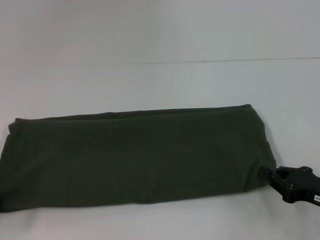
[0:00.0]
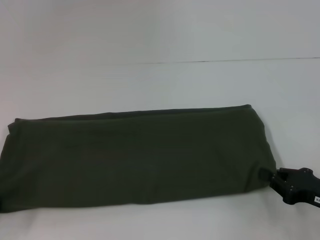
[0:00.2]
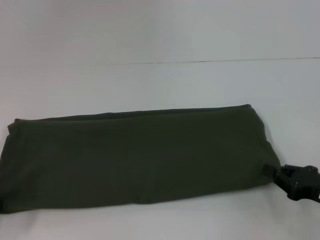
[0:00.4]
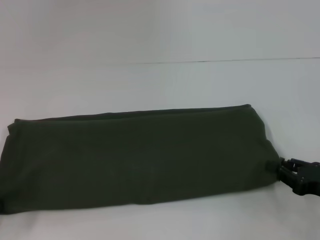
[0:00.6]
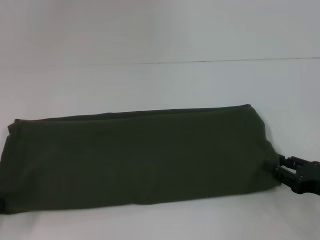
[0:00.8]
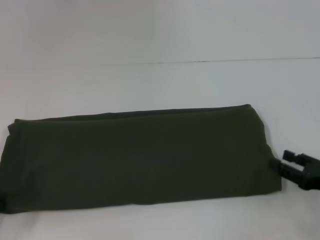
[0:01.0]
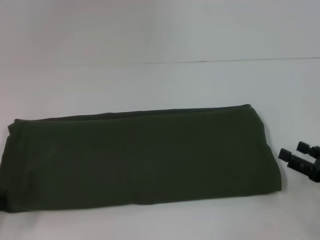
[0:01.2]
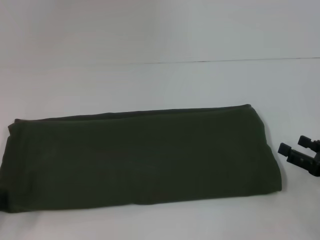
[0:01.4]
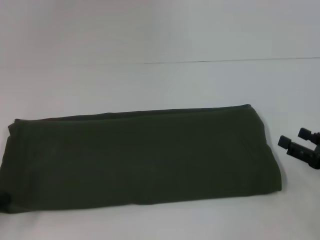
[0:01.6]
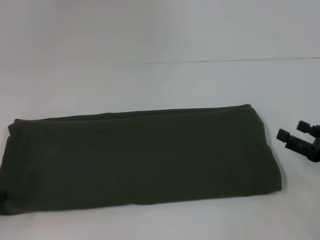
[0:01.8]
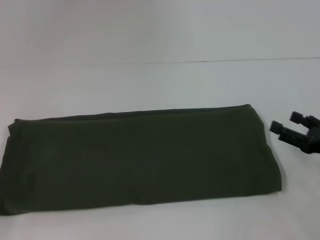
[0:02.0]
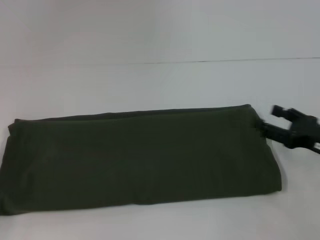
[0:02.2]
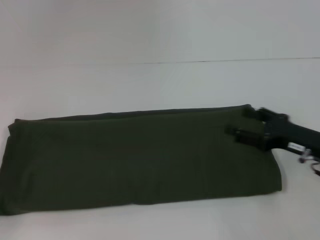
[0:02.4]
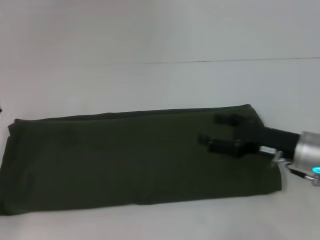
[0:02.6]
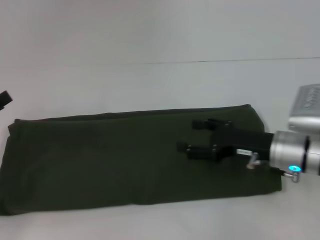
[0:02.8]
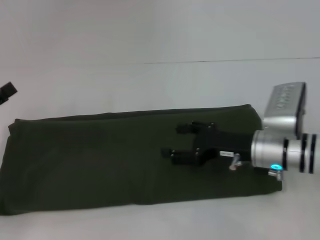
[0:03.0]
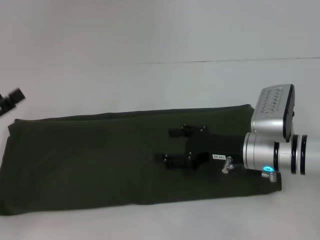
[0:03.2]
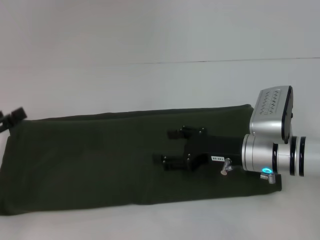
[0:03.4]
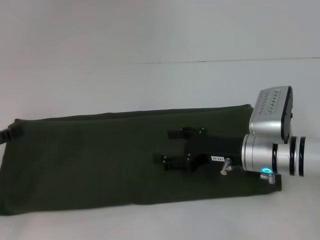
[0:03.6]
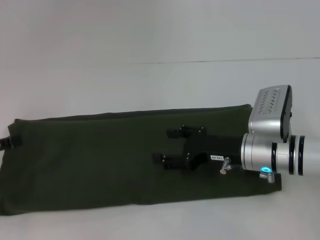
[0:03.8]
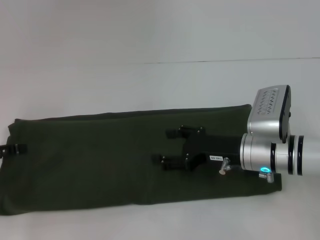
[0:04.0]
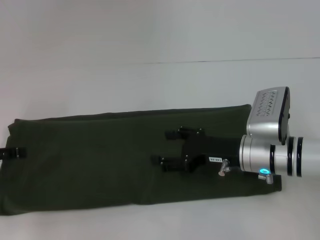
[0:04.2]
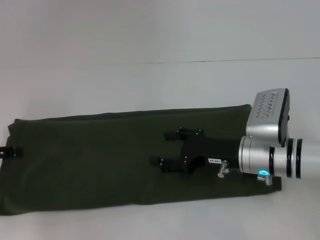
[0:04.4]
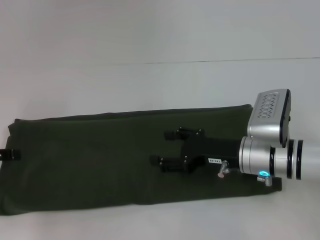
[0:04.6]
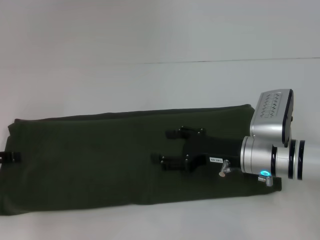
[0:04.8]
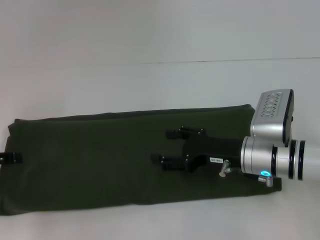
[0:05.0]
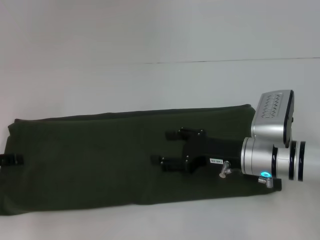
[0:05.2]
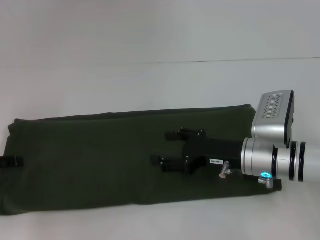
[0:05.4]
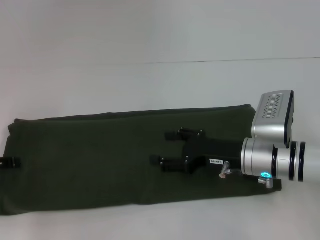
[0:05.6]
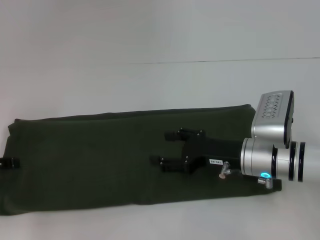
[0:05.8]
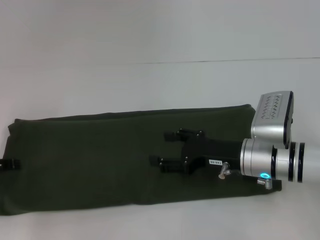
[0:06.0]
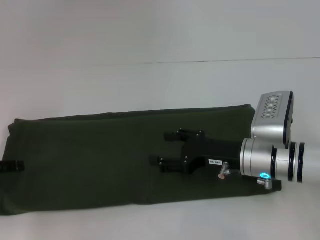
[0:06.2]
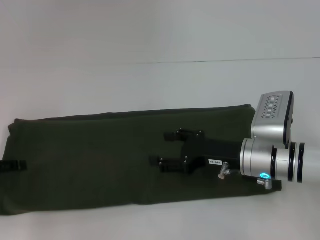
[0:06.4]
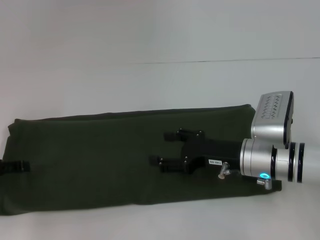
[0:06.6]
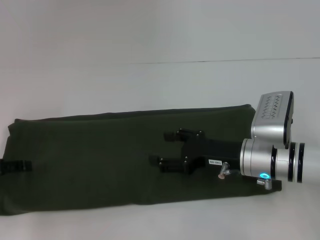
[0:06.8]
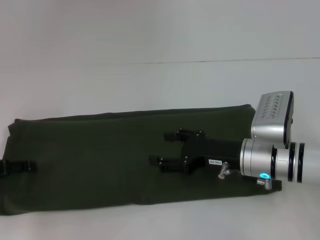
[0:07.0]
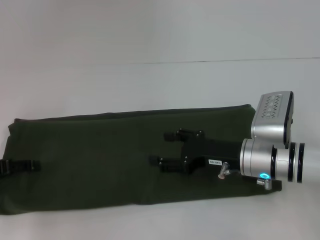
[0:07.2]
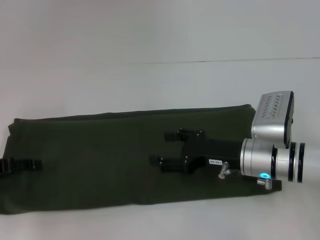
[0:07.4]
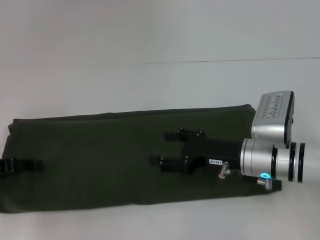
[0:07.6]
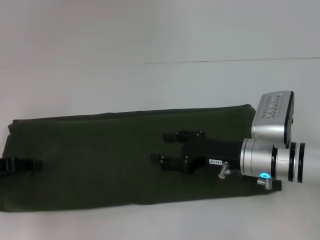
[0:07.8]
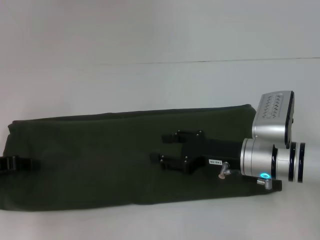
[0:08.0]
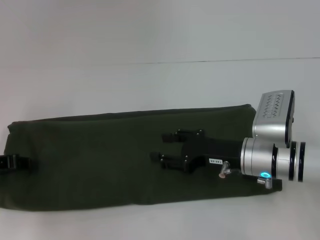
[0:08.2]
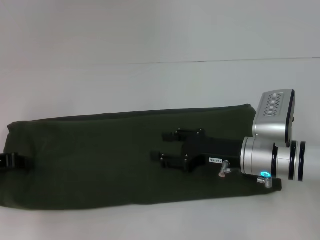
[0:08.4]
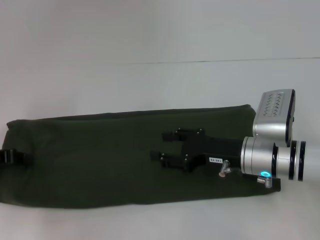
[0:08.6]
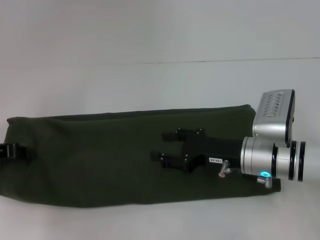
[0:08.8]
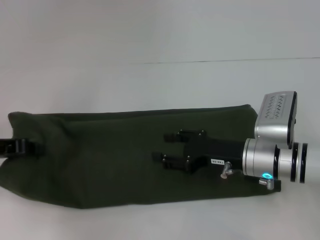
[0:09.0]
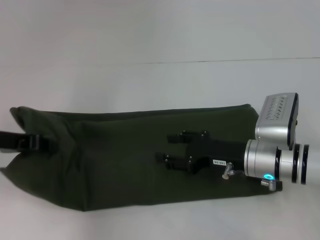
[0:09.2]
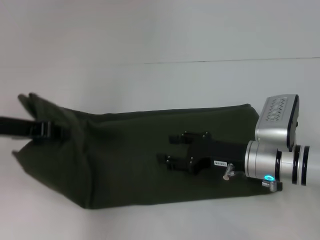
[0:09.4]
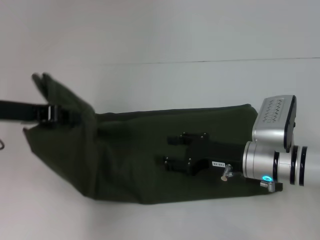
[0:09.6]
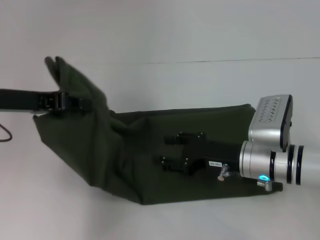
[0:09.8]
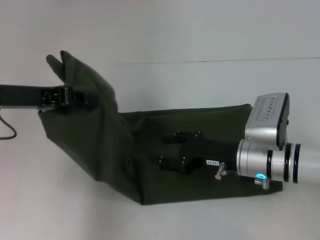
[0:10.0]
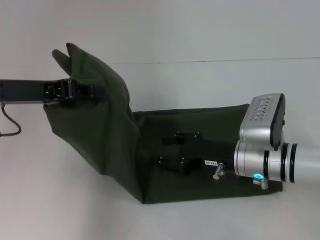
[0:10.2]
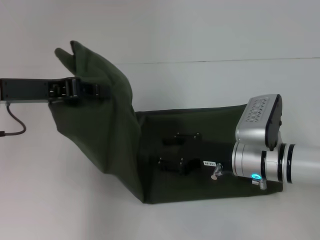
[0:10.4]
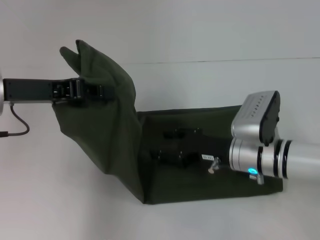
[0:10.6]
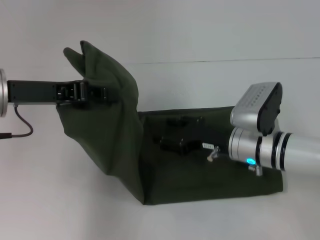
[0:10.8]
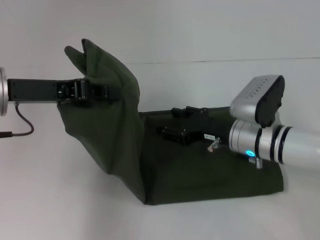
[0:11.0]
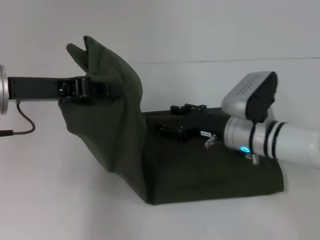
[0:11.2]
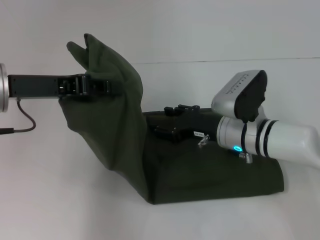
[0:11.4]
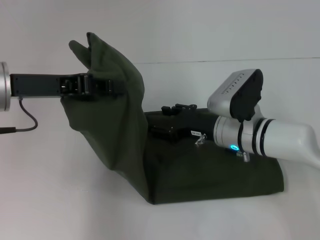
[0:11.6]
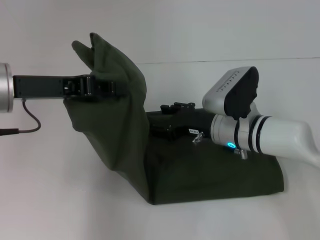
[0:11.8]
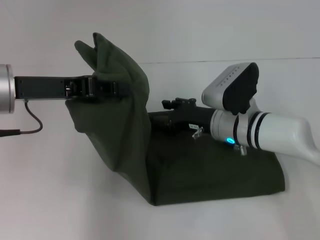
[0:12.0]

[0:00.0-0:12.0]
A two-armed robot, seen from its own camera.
Step, 0:01.0 to 0:01.8: Pull the clothes with your left hand.
0:00.0 to 0:01.6: The right gripper opens its fingers.
0:01.6 to 0:03.0: The left gripper opens up. The right gripper travels to the left and forward by approximately 20 cm.
0:04.4 to 0:06.0: There are only small adjustments of the grippers.
0:07.6 to 0:09.0: The left gripper moves about 5 cm, and closes its fingers.
0:09.0 to 0:10.4: The left gripper heads upward and to the right, covering approximately 10 cm.
0:10.4 to 0:12.0: The right gripper shifts by some 5 cm.

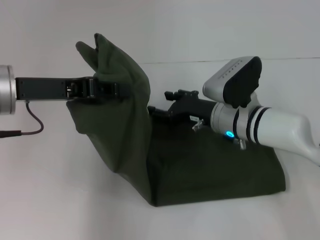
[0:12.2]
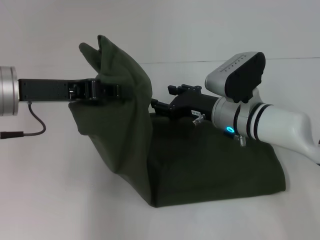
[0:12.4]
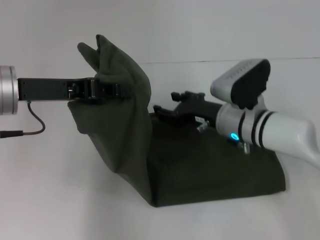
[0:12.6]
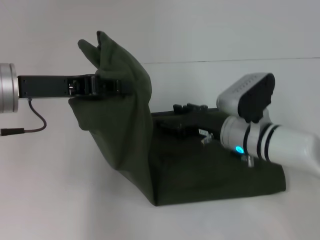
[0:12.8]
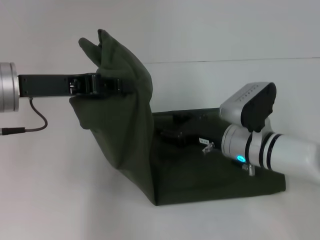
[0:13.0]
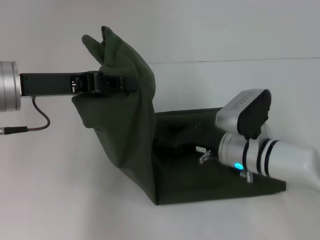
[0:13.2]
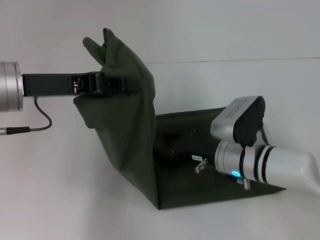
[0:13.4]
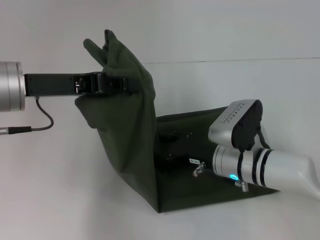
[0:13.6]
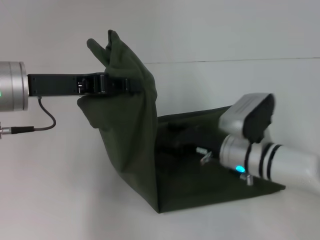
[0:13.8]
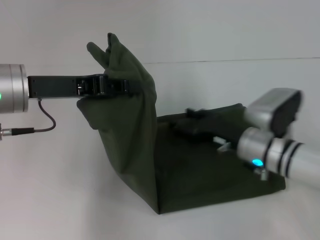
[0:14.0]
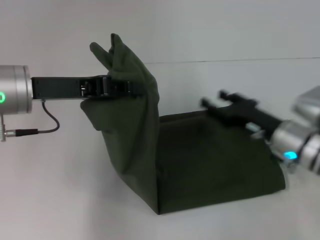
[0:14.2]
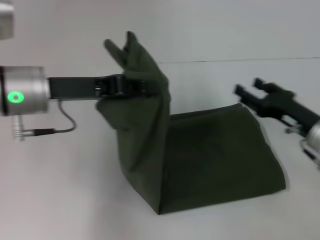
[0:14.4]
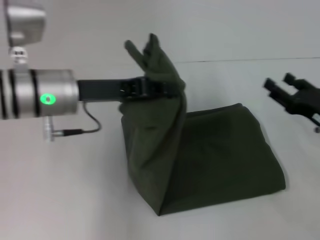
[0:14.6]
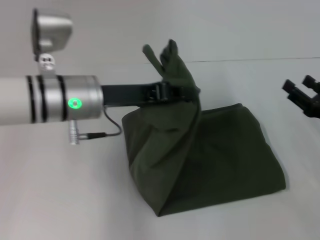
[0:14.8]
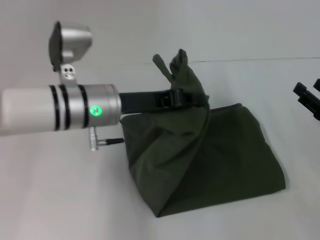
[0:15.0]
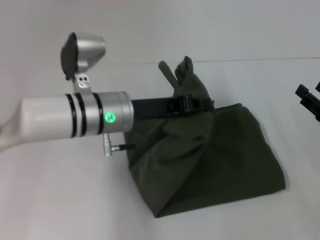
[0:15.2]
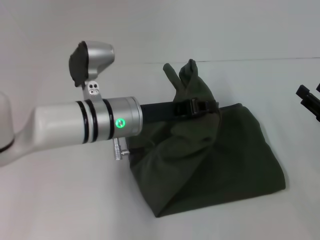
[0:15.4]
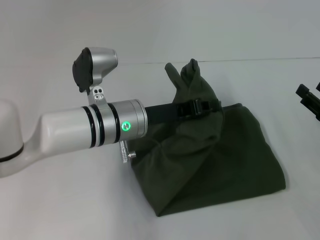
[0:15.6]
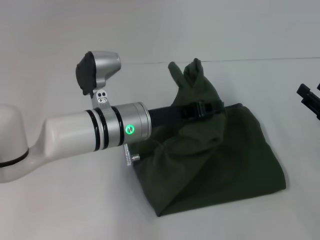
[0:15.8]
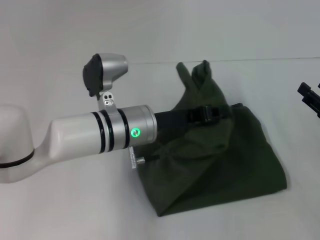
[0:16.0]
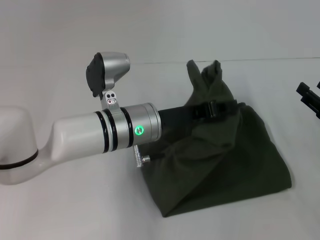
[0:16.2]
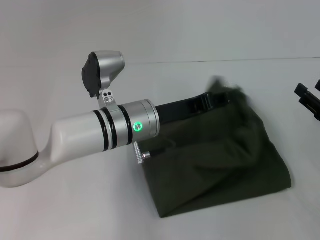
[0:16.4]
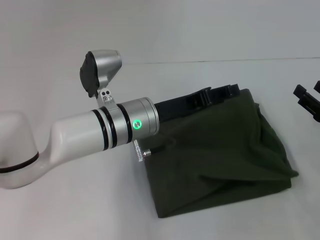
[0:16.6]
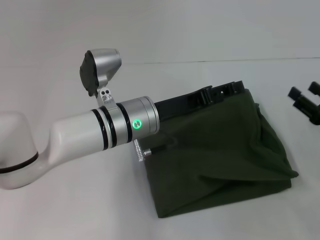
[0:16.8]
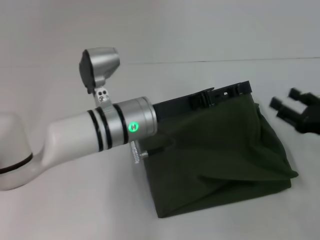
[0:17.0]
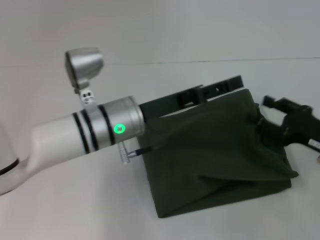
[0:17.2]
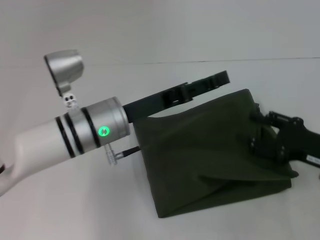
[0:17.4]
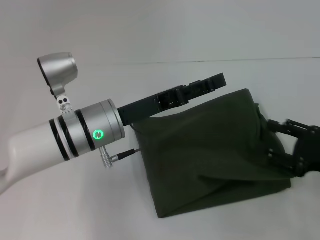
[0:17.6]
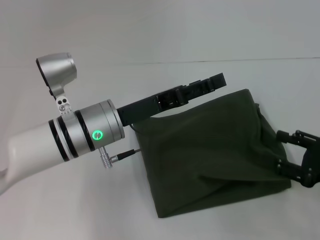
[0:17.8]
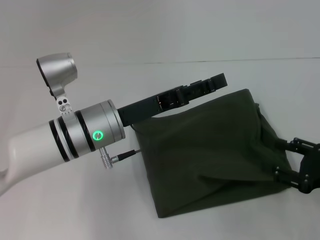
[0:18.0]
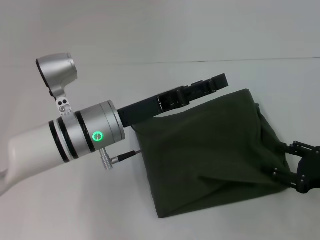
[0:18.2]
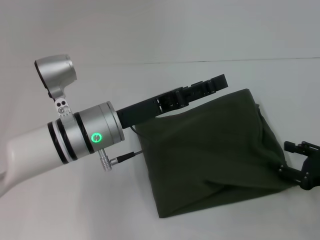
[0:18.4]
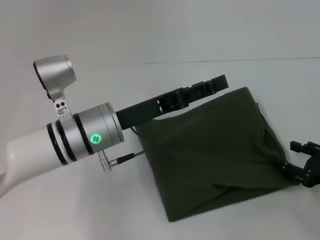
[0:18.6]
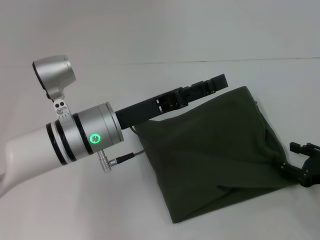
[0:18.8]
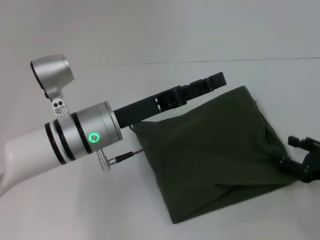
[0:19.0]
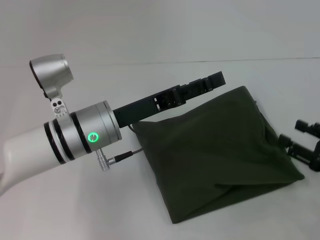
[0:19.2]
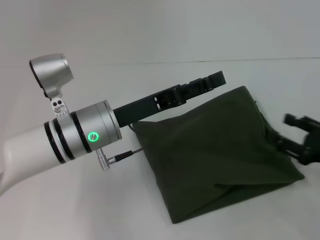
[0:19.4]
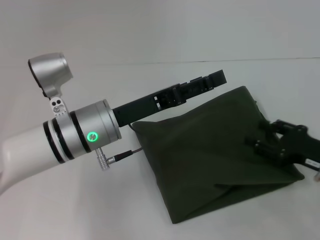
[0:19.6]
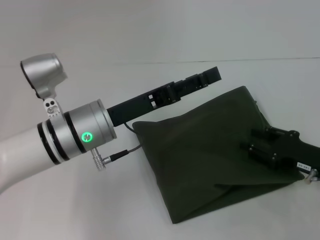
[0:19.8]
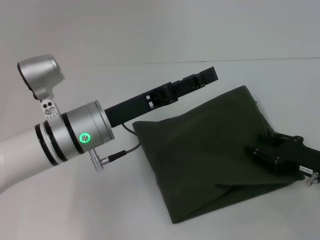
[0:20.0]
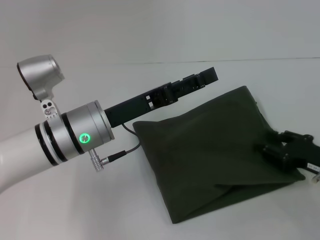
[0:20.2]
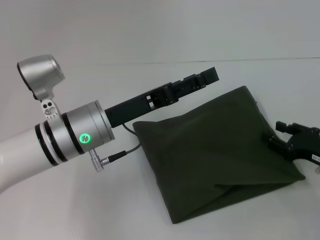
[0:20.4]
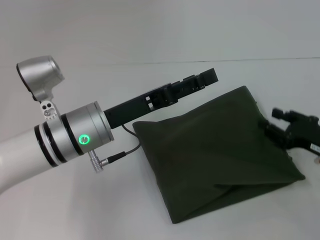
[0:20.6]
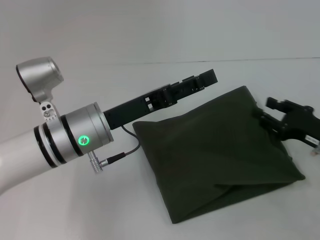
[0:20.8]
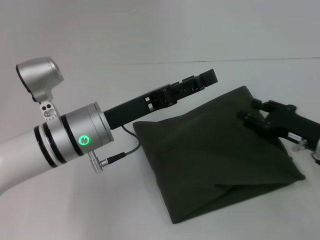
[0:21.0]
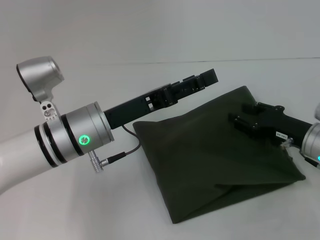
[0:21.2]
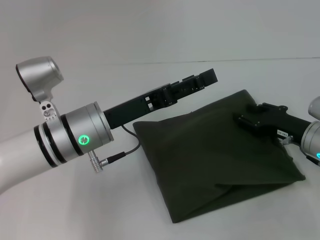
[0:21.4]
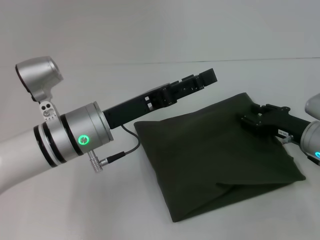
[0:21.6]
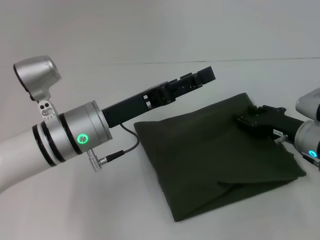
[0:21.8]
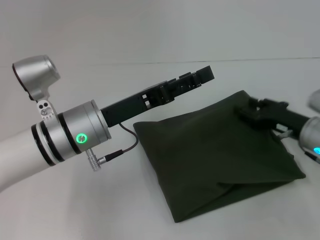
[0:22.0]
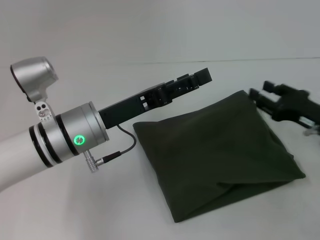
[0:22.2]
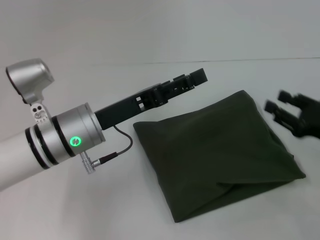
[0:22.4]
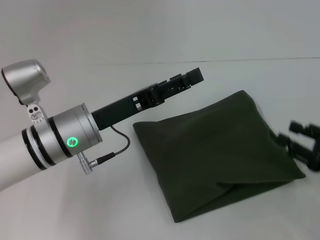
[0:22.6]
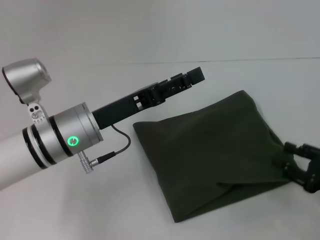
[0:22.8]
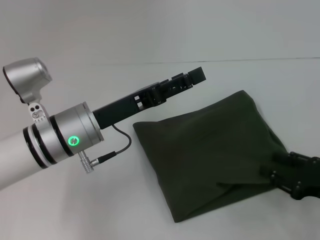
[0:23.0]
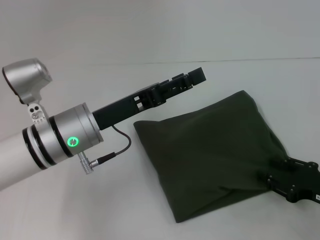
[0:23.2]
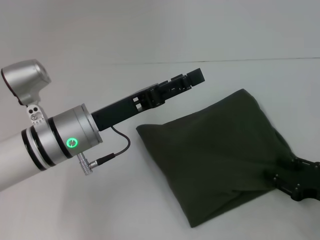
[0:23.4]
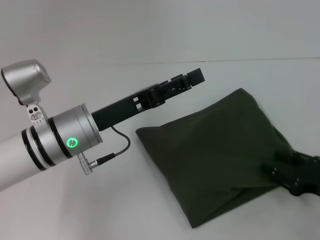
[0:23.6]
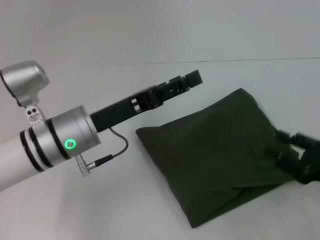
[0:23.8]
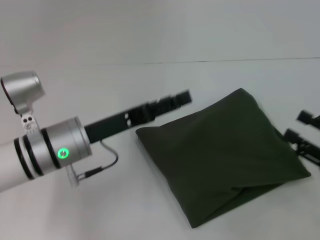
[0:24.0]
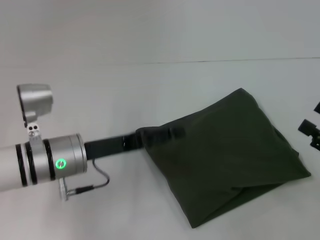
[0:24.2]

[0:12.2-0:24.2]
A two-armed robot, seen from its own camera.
Step, 0:12.2 to 0:16.6: Fold the clothes with your left hand.
0:12.2 to 0:13.8: The right gripper ends up about 5 cm from where it was.
0:13.8 to 0:15.2: The right gripper goes about 20 cm to the right. The left gripper heads to the right and downward, covering about 15 cm.
0:16.6 to 0:18.2: The left gripper ends up roughly 5 cm from where it was, and opens.
0:18.2 to 0:19.8: The grippers make only small movements.
0:19.8 to 0:21.2: The right gripper shifts some 5 cm forward.
0:21.2 to 0:22.6: The right gripper heads backward and to the right, covering about 10 cm.
